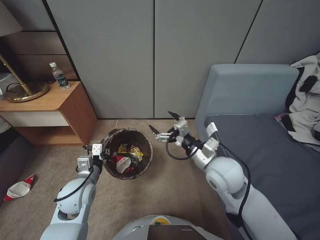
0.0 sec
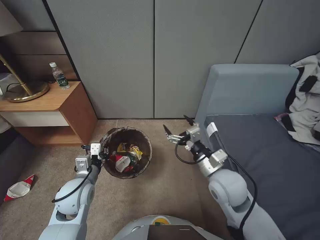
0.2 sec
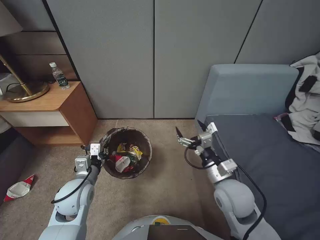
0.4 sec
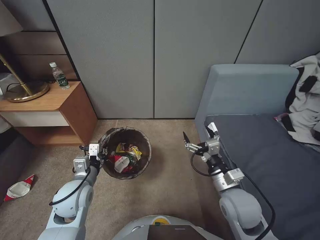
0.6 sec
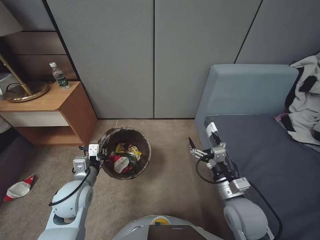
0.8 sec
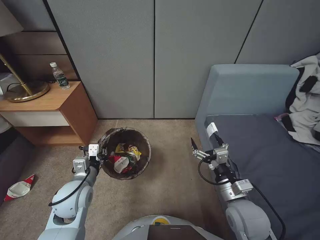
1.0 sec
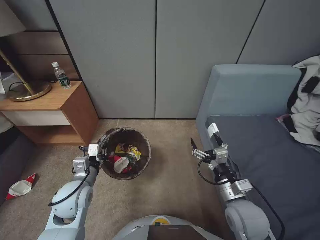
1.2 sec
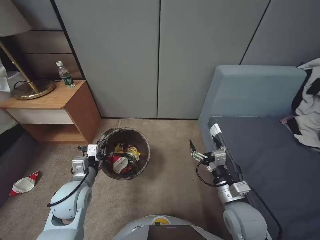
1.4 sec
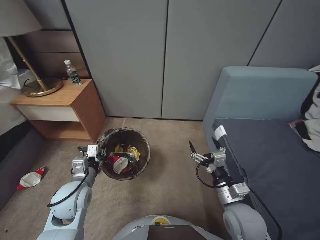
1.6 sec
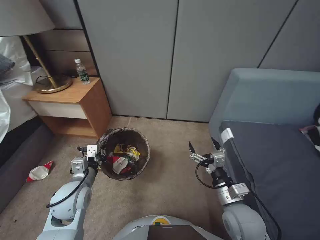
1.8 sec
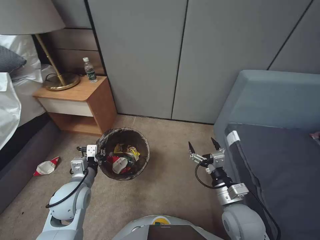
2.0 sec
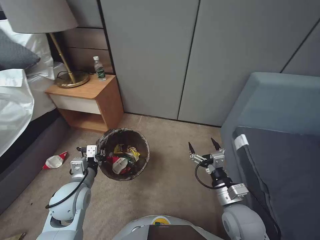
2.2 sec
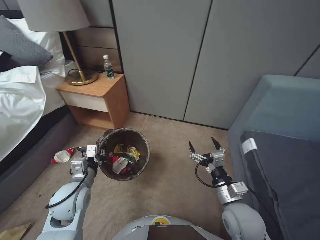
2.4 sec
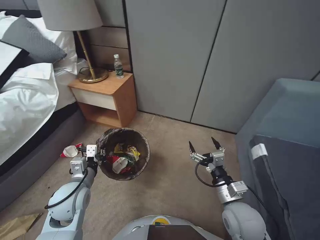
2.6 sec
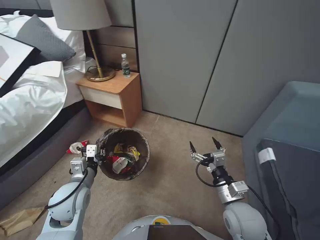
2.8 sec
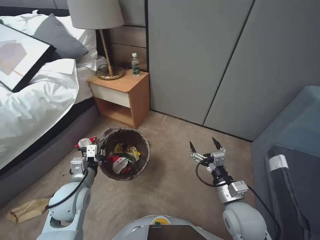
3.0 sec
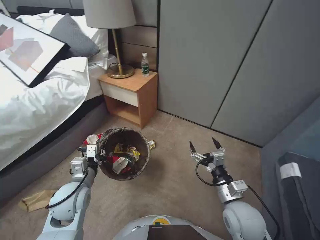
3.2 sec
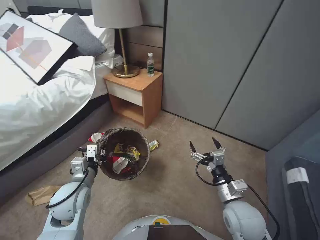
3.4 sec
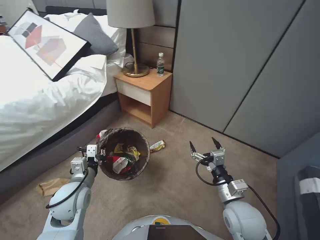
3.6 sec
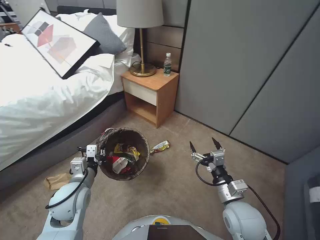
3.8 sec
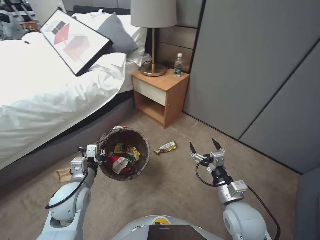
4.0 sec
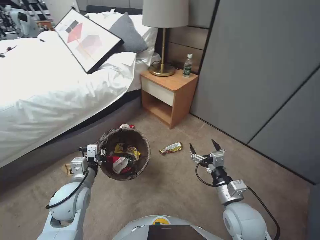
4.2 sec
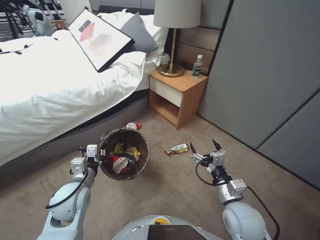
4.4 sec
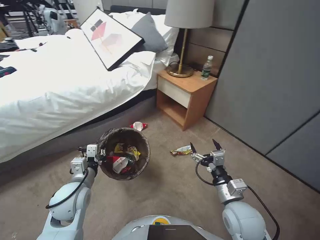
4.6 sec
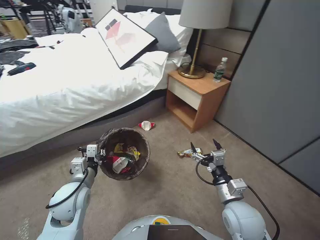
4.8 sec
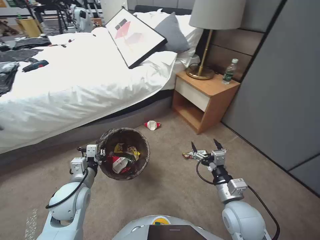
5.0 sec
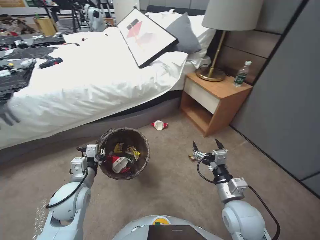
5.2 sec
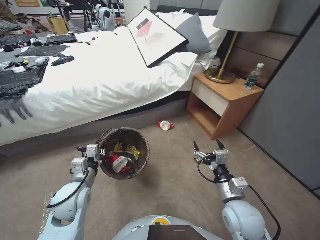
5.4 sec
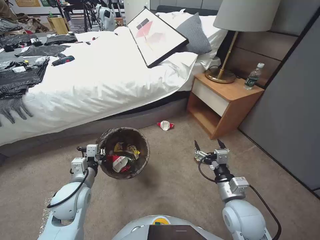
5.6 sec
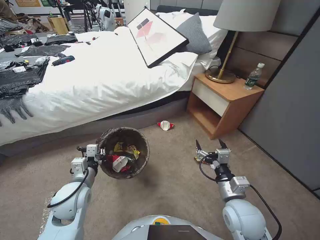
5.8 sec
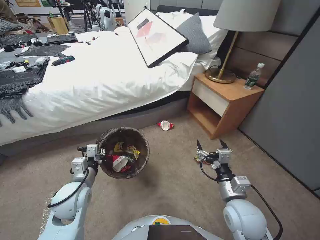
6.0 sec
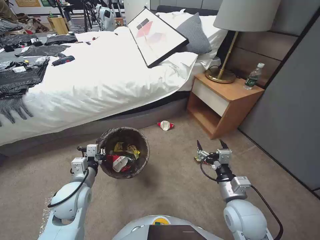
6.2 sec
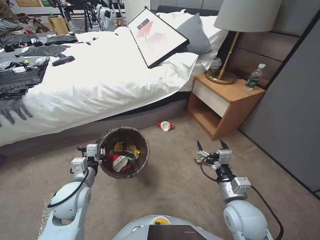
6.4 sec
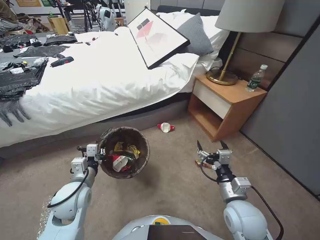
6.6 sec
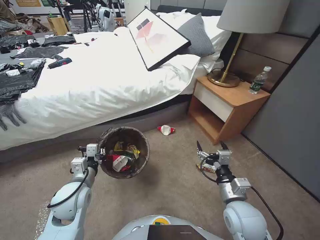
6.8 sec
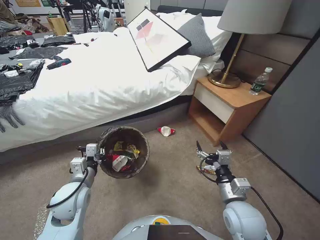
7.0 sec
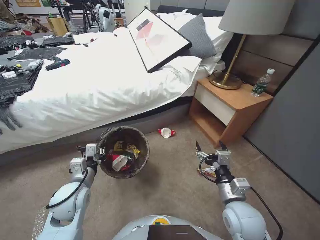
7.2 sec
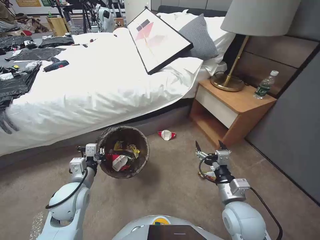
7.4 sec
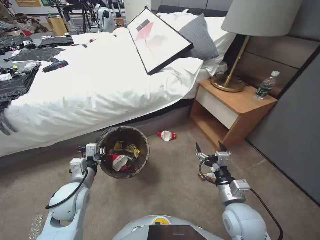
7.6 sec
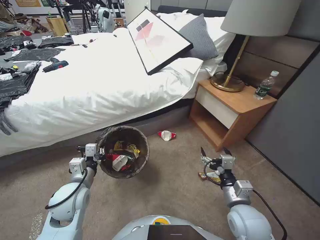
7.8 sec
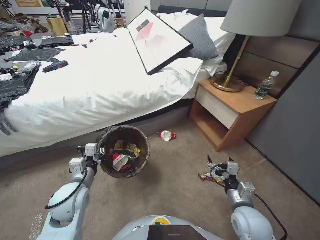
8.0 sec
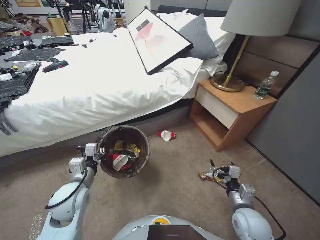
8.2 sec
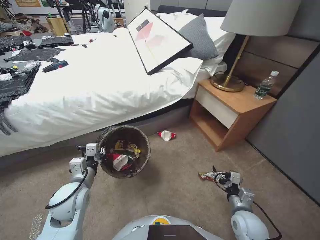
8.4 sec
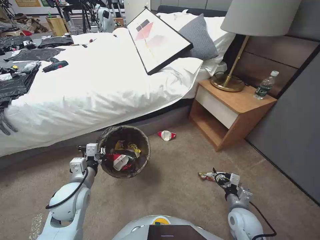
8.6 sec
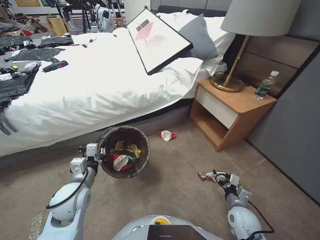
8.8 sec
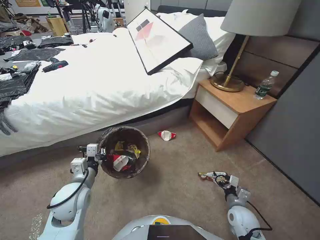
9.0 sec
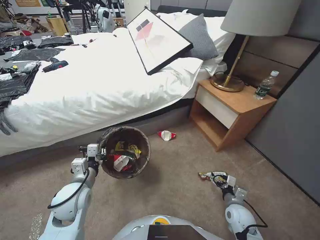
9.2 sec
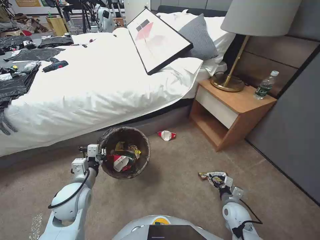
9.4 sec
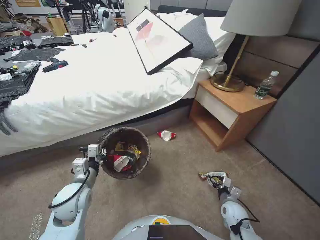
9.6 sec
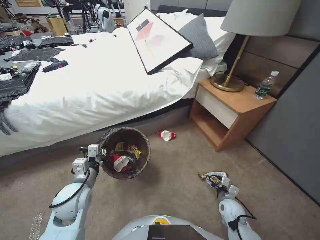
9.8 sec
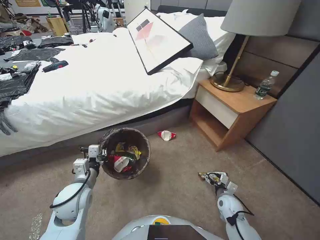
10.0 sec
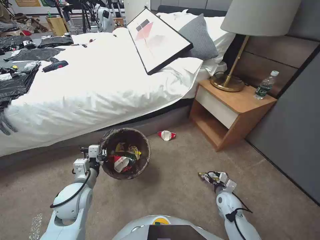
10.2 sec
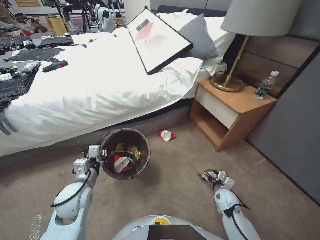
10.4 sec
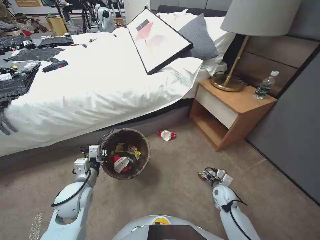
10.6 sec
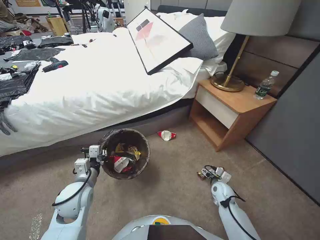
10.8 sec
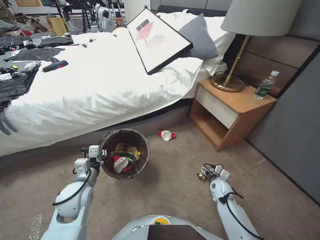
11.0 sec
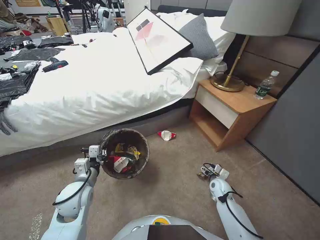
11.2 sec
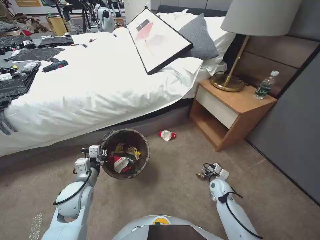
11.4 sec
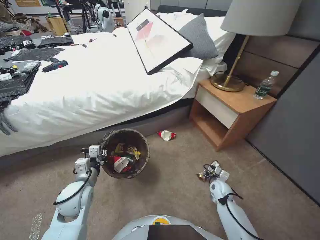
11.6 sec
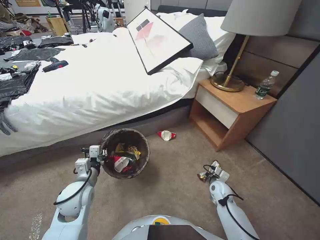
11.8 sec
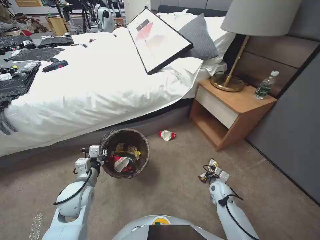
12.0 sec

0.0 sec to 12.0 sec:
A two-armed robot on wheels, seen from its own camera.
Task of the whole recording: Pick up the trash bin, then pick up the garbage from the floor and place it into the trash bin.
0.0 sec to 1.6 sec: The right gripper shifts some 15 cm downward, backward and to the right.
7.6 sec to 9.0 sec: The right gripper shifts approximately 20 cm downward and to the right.
9.0 sec to 10.4 sec: The right gripper goes roughly 10 cm forward and downward.
10.4 sec to 12.0 sec: The right gripper closes up.

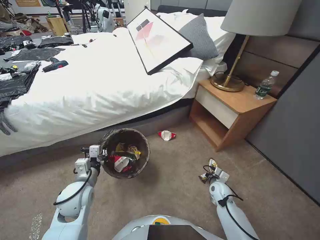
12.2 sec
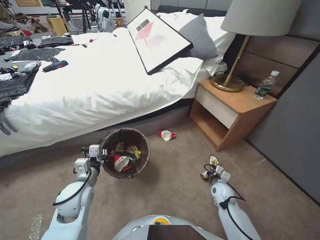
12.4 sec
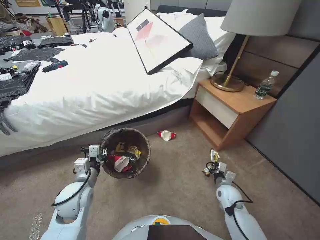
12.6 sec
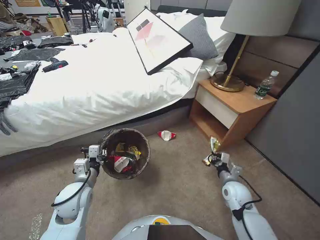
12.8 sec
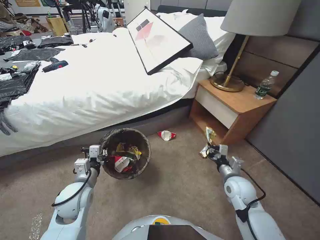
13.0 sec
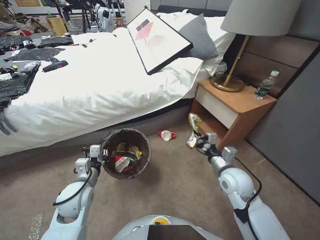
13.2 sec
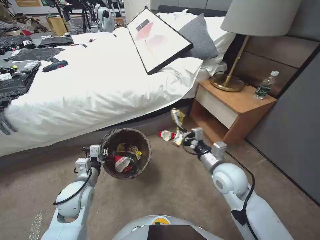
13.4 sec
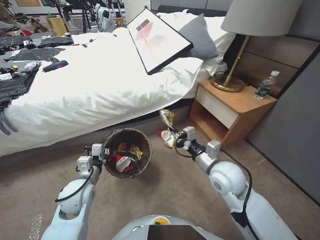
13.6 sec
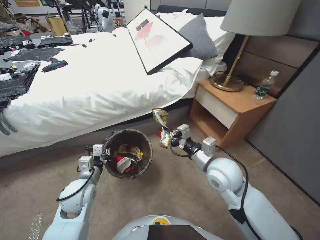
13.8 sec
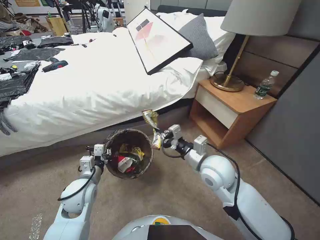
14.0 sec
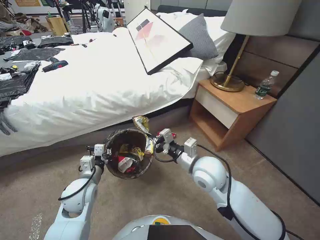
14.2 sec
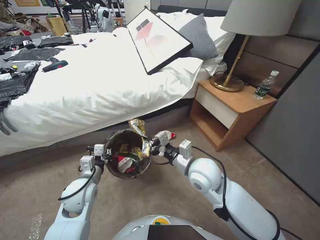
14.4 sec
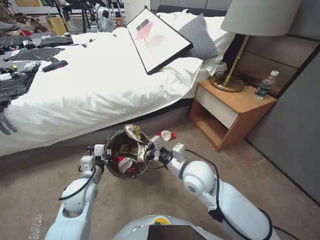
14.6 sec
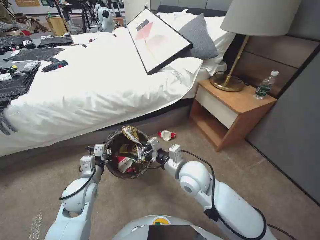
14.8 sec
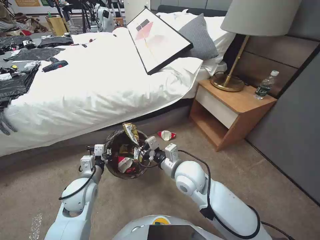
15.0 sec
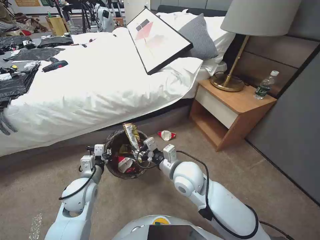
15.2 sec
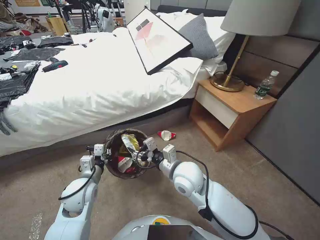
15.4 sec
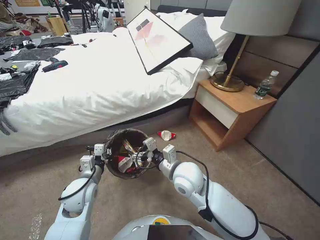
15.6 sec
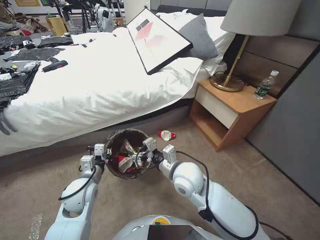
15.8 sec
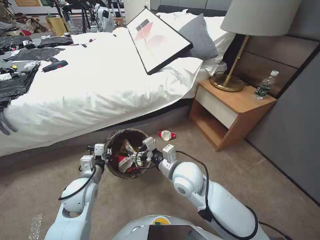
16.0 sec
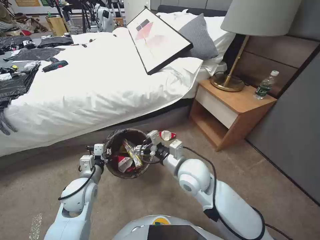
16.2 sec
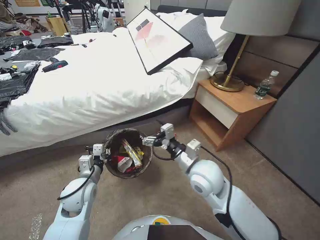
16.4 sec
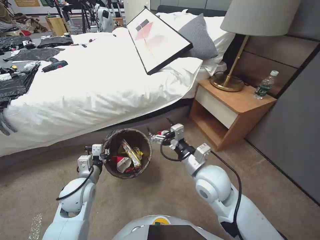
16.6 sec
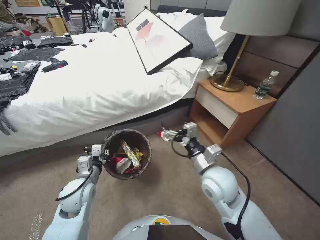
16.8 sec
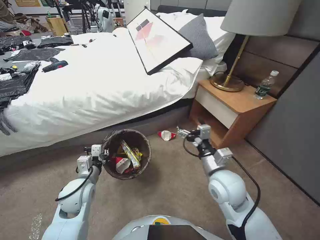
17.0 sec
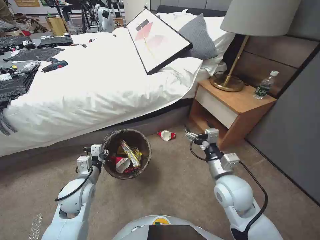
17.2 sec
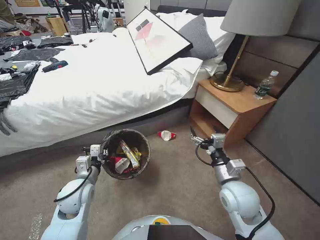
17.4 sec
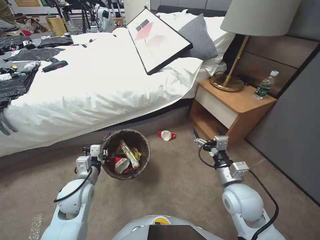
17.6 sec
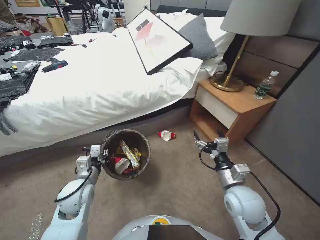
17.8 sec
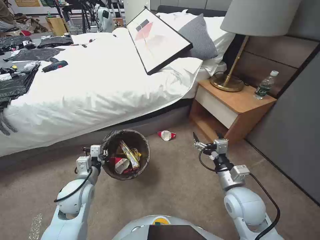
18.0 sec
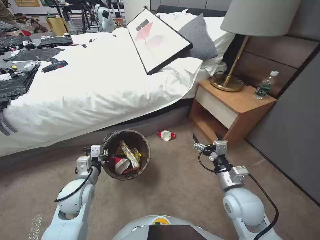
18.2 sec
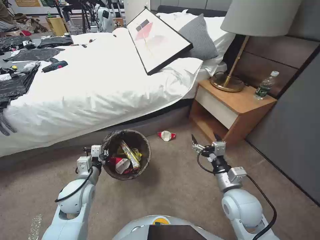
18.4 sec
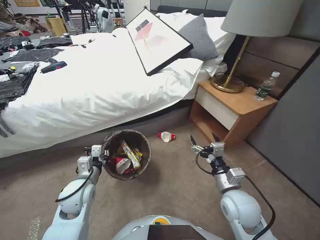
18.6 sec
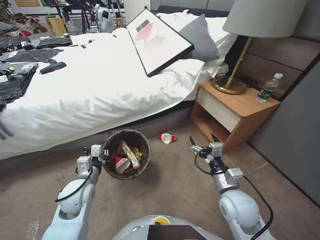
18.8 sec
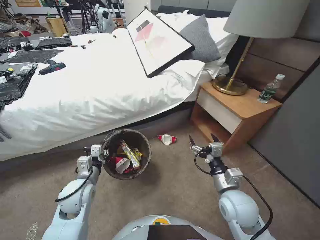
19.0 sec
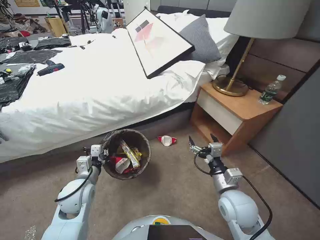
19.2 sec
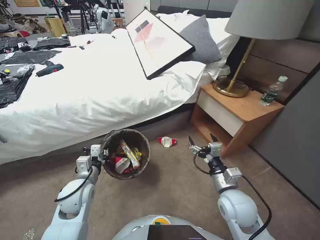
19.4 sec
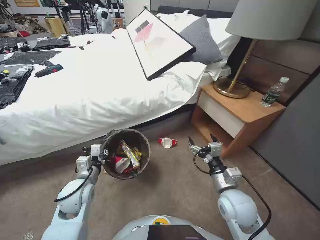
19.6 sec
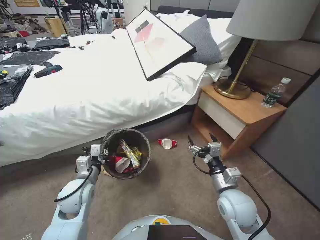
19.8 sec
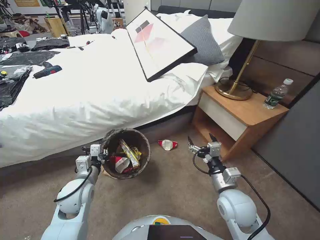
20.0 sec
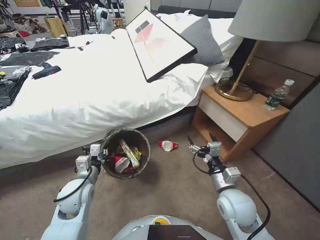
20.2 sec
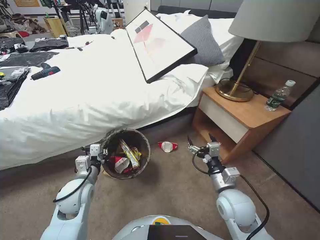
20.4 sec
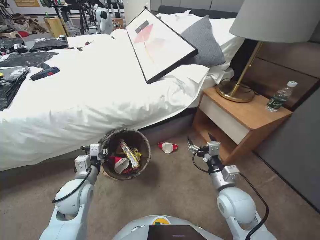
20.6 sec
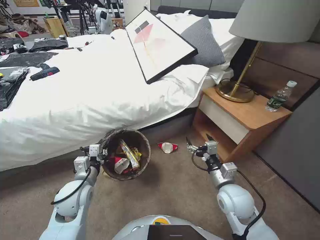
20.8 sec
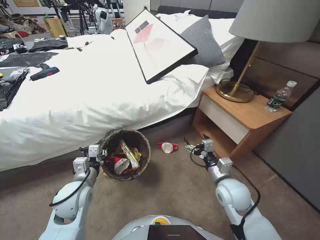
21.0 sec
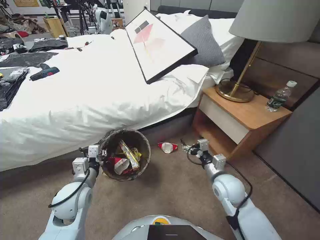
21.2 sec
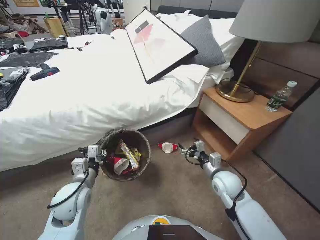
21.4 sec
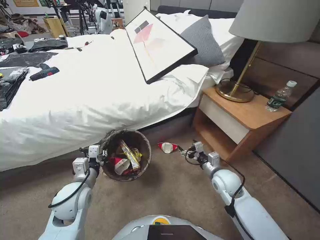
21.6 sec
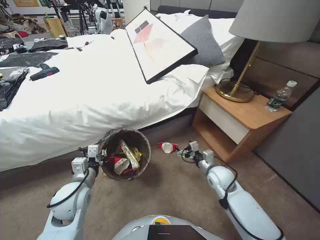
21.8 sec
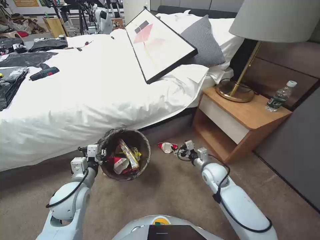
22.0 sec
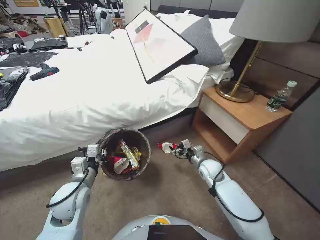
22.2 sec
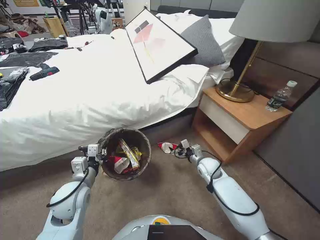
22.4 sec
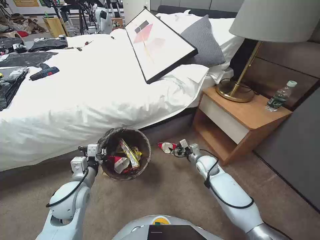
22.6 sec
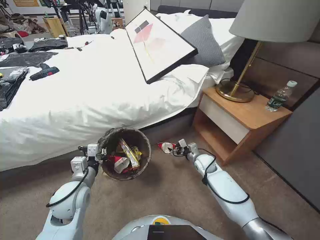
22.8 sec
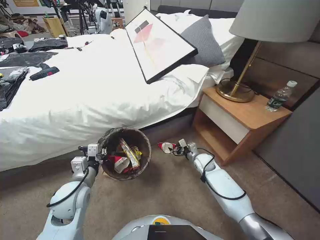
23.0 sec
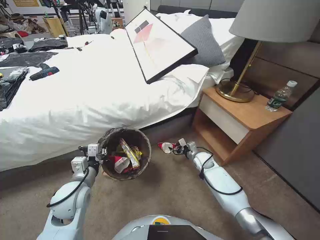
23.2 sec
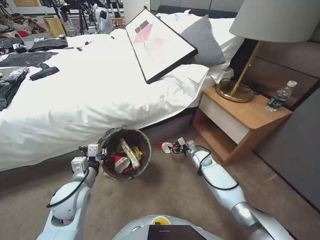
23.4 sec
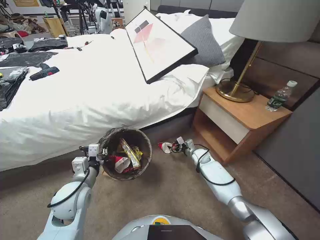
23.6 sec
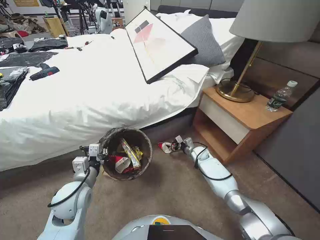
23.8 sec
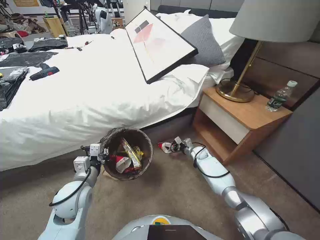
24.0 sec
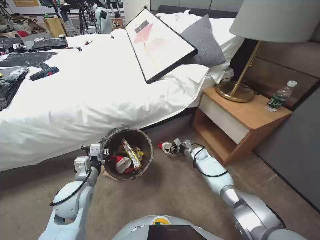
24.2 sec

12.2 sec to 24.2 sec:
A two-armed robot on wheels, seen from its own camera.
Task of the whole recording: Pick up the trash bin, then pick up the garbage from the floor and place it into the trash bin.
12.2 sec to 13.8 sec: The right gripper heads upward, covering about 30 cm.
13.8 sec to 15.2 sec: The right gripper travels to the left by roughly 10 cm, and opens.
15.2 sec to 16.6 sec: The right gripper is displaced to the right by some 5 cm, and opens up.
16.6 sec to 18.2 sec: The right gripper goes some 10 cm to the right and downward.
19.8 sec to 21.2 sec: The right gripper is displaced forward by some 5 cm.
21.2 sec to 22.6 sec: The right gripper goes some 15 cm forward and downward.
22.6 sec to 24.2 sec: The right gripper is displaced forward and downward by approximately 15 cm.
